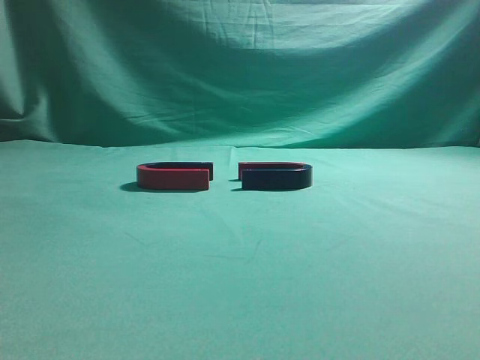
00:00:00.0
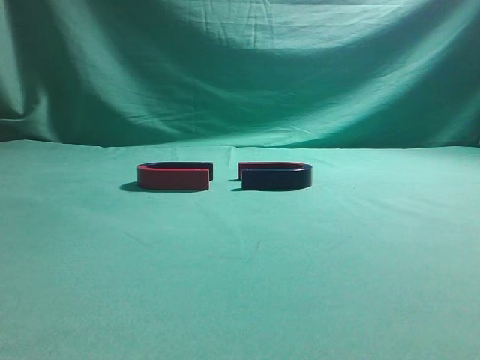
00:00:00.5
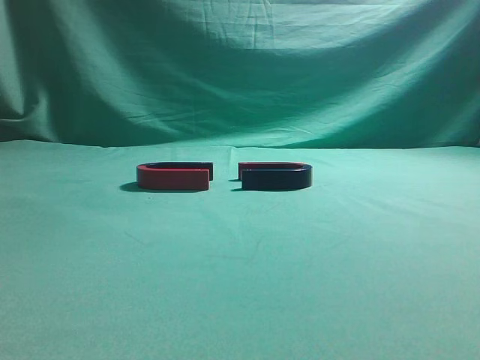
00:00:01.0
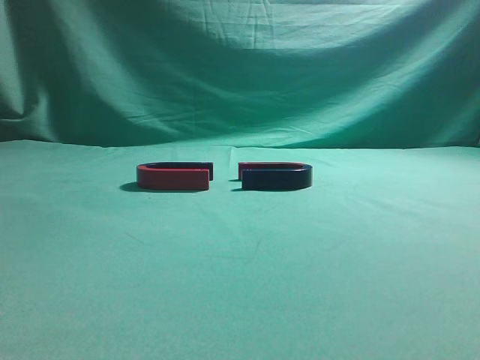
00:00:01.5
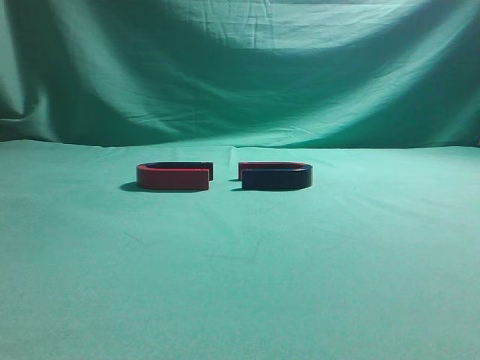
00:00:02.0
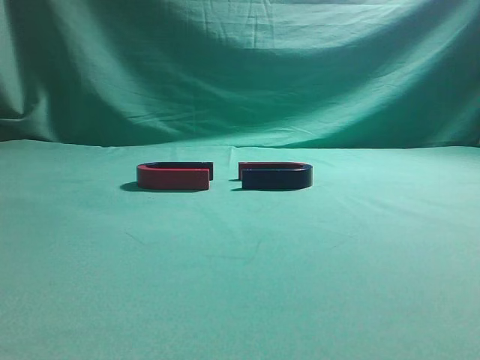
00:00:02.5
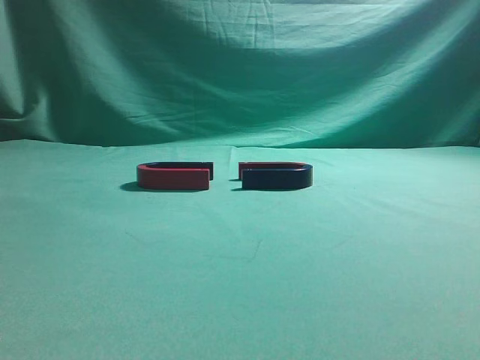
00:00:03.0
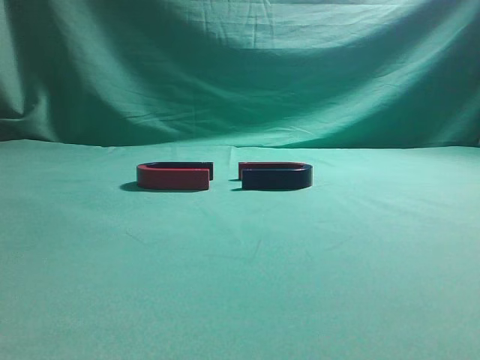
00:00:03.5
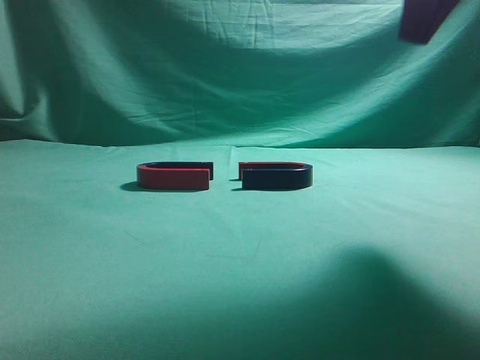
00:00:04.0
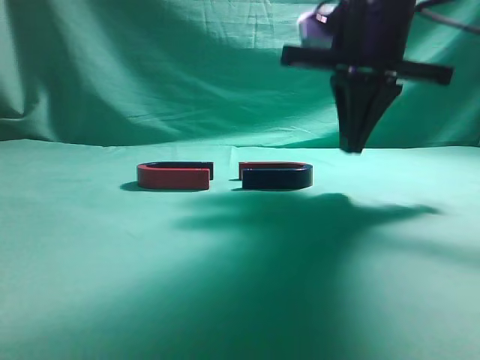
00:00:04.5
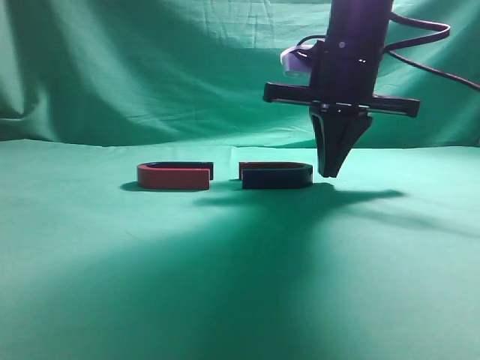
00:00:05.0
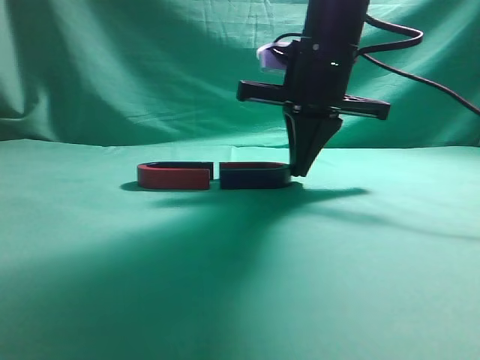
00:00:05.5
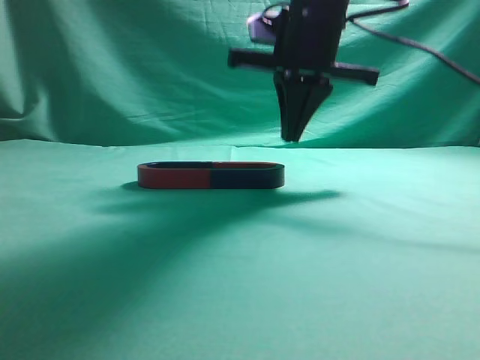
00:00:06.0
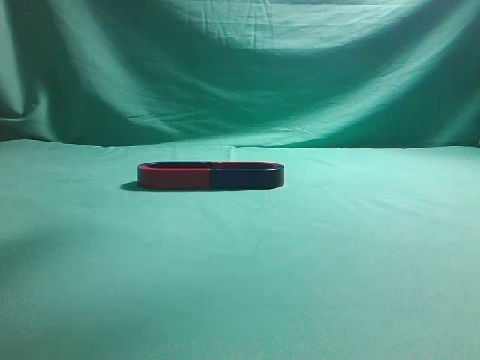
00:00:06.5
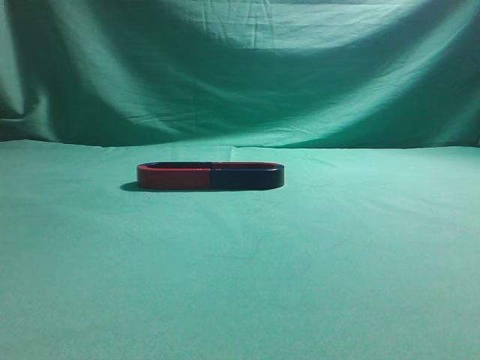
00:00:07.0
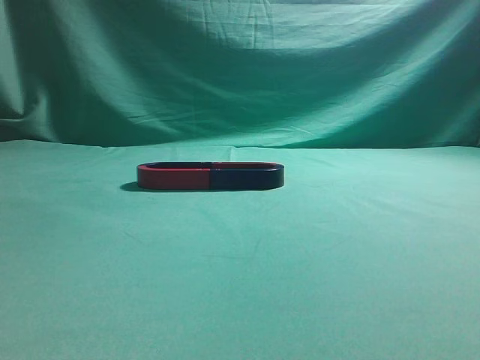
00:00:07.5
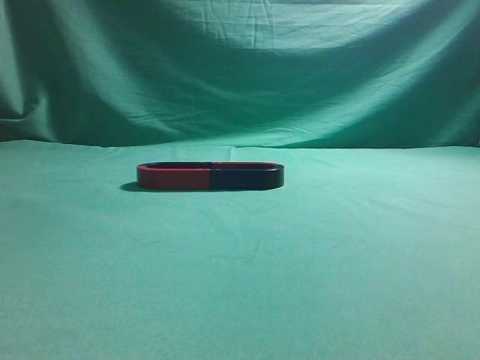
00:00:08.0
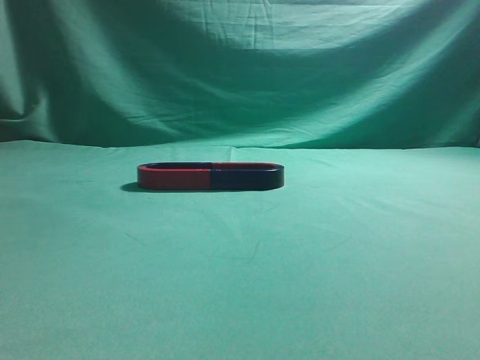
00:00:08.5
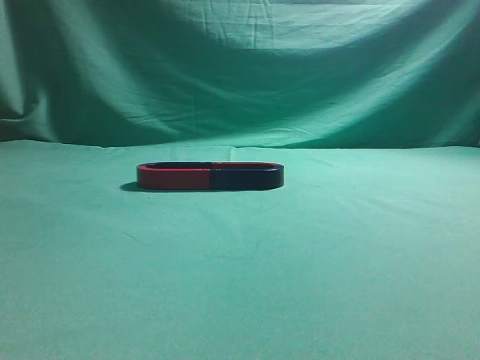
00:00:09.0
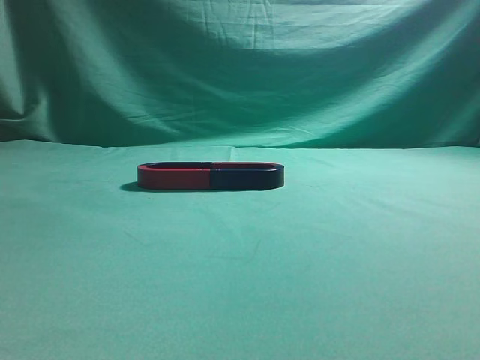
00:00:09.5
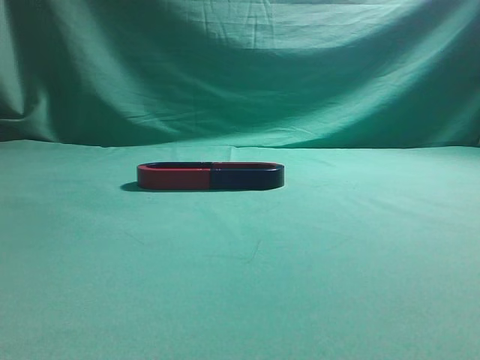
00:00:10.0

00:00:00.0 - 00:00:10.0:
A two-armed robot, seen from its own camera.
Task of the whole recording: push the magnet on the table from its original position to another position.
Step, 00:00:00.0 - 00:00:05.5: Push the magnet on the right to connect the magnet on the left.
00:00:02.0 - 00:00:04.0: The right gripper goes some 25 cm forward and to the left.
00:00:04.0 - 00:00:06.0: The right gripper travels forward, to the left and downward by roughly 20 cm.
00:00:06.0 - 00:00:08.0: The right gripper heads backward, to the right and upward, covering approximately 40 cm.
